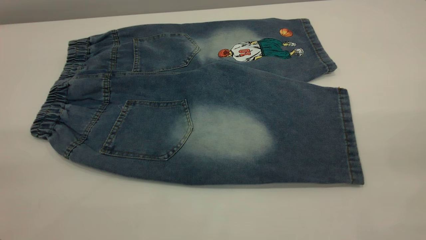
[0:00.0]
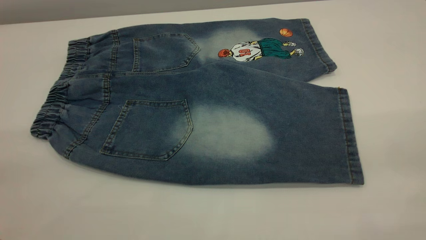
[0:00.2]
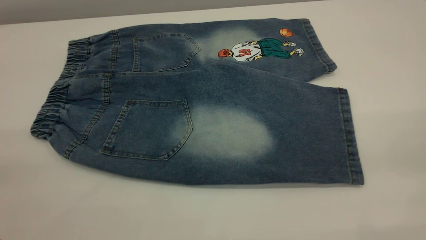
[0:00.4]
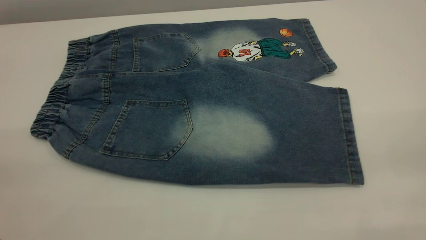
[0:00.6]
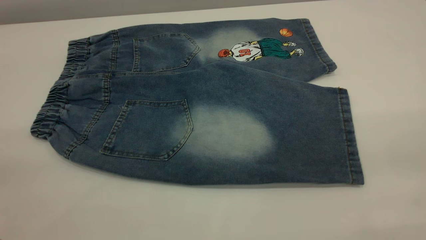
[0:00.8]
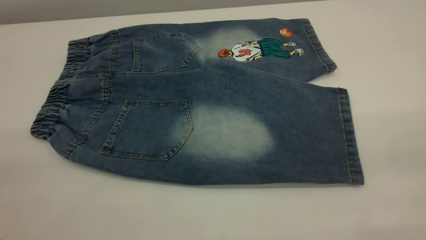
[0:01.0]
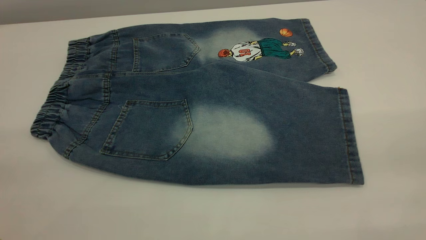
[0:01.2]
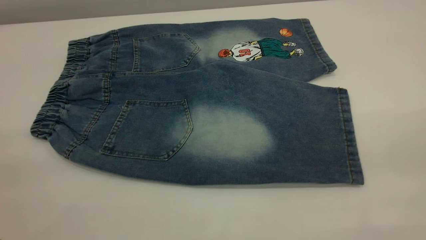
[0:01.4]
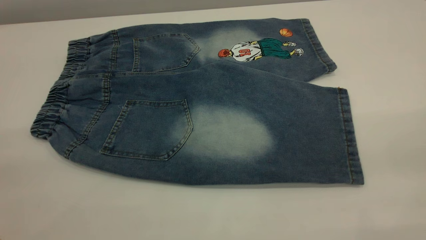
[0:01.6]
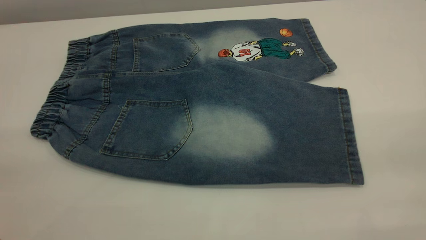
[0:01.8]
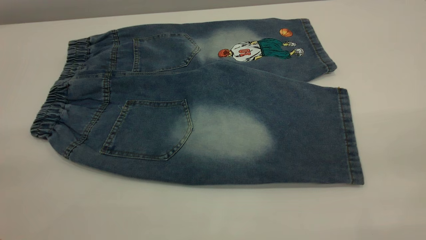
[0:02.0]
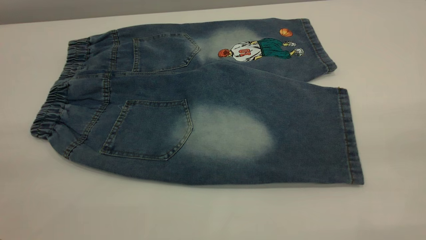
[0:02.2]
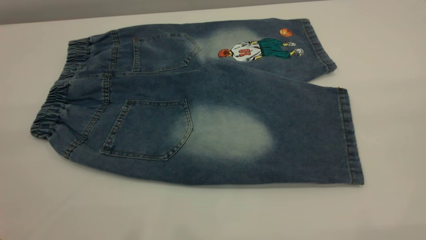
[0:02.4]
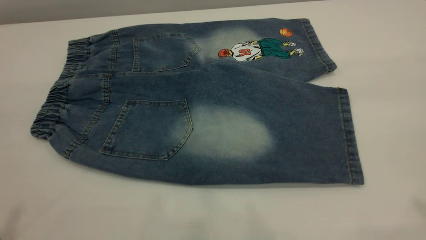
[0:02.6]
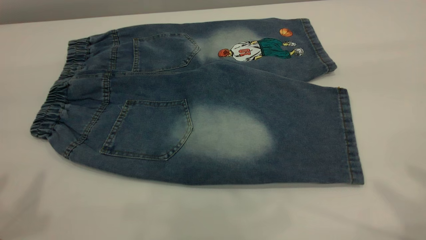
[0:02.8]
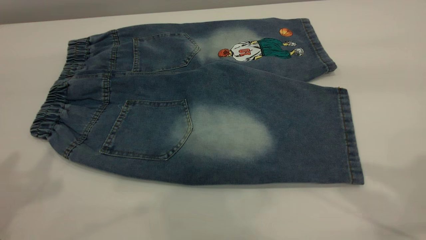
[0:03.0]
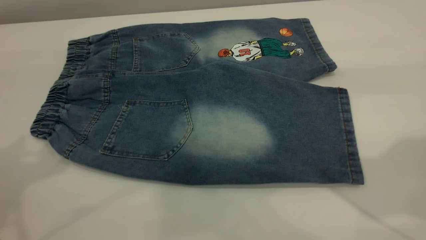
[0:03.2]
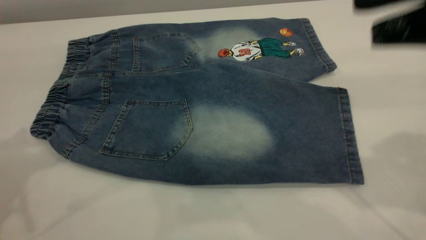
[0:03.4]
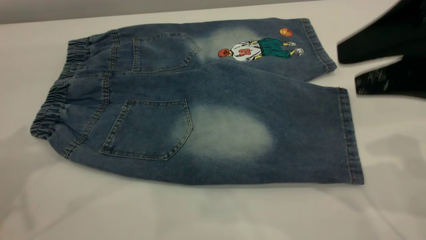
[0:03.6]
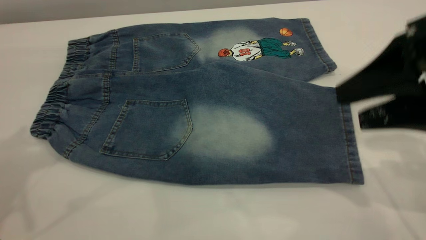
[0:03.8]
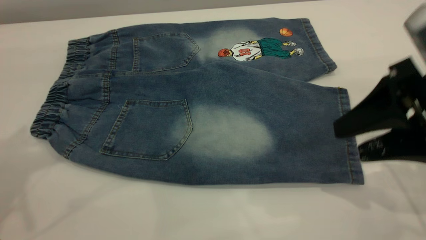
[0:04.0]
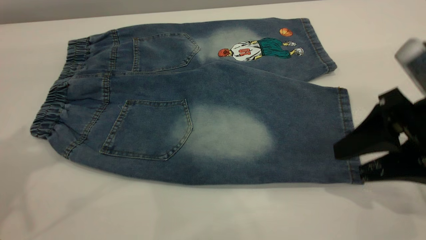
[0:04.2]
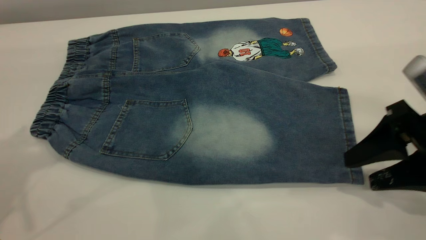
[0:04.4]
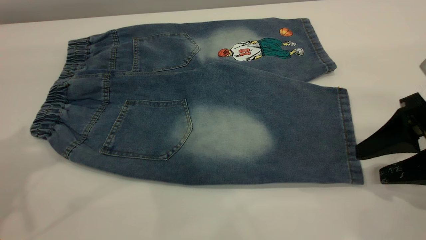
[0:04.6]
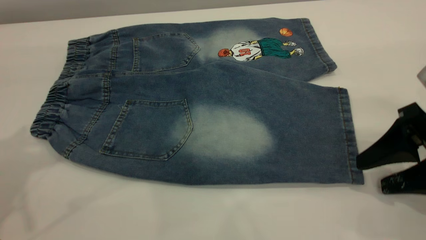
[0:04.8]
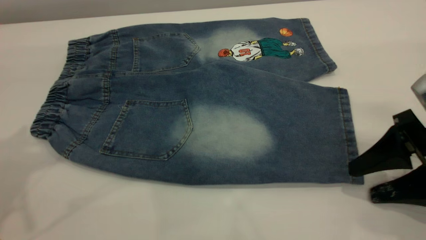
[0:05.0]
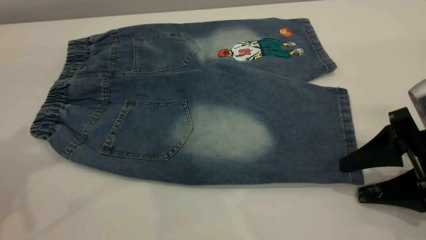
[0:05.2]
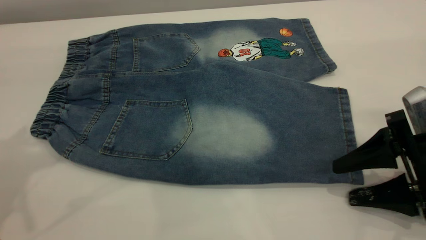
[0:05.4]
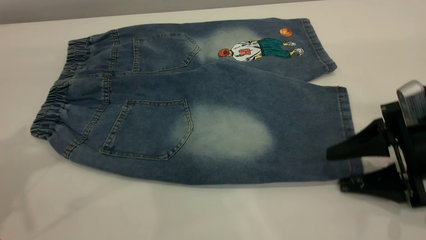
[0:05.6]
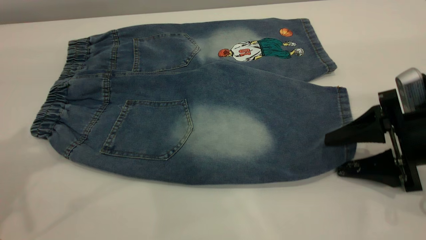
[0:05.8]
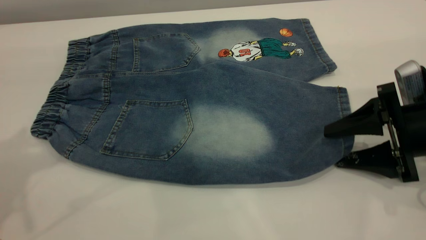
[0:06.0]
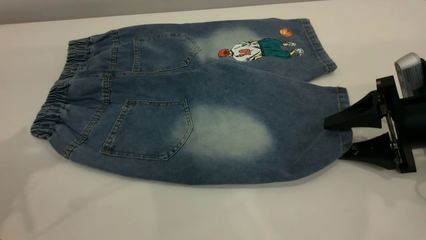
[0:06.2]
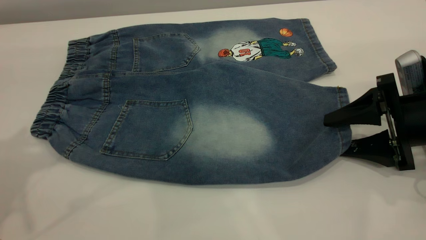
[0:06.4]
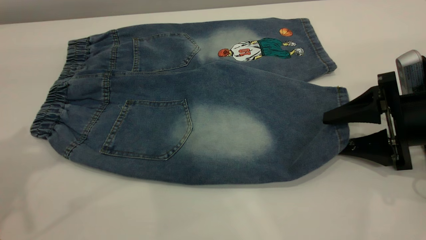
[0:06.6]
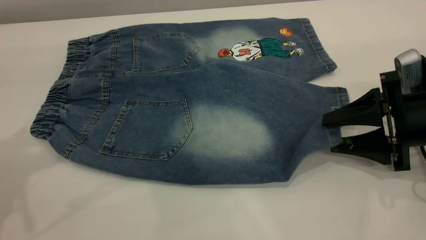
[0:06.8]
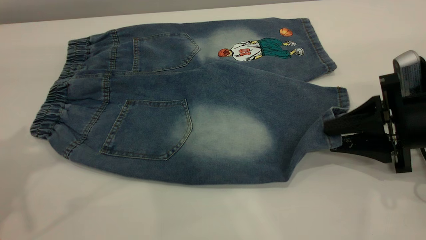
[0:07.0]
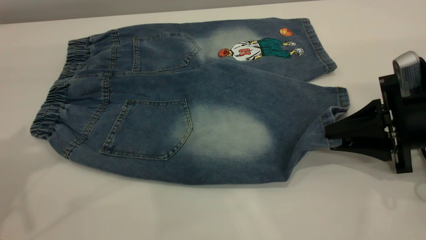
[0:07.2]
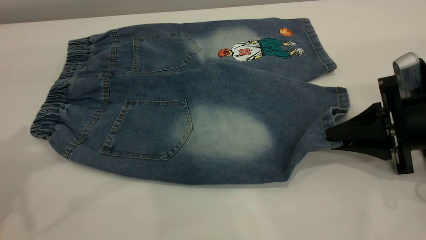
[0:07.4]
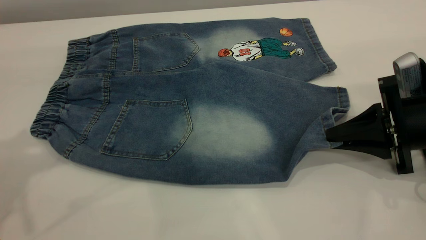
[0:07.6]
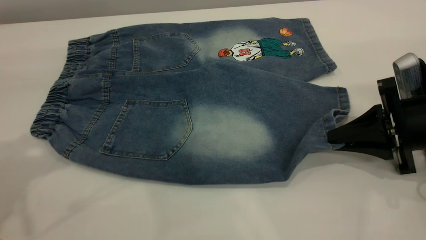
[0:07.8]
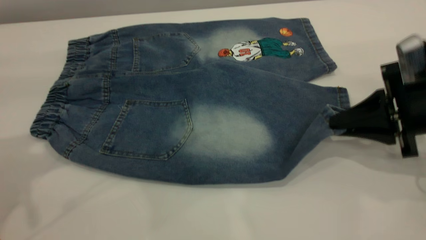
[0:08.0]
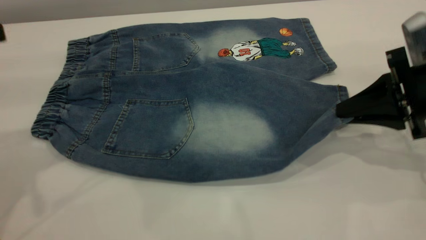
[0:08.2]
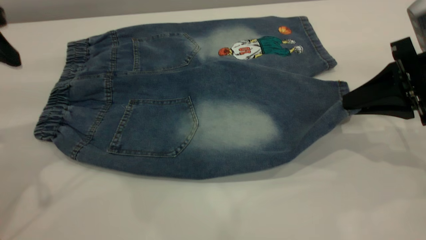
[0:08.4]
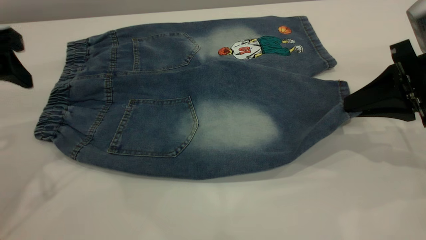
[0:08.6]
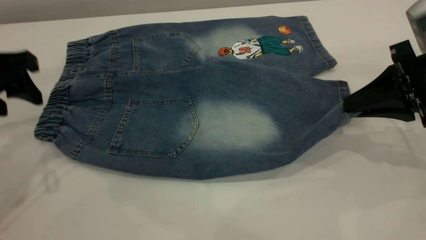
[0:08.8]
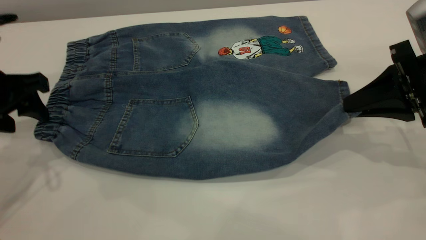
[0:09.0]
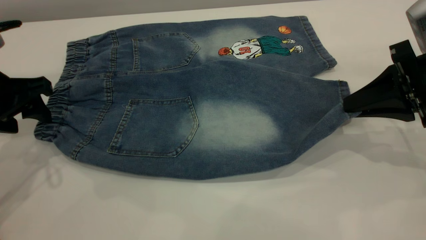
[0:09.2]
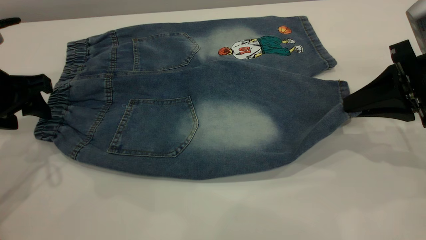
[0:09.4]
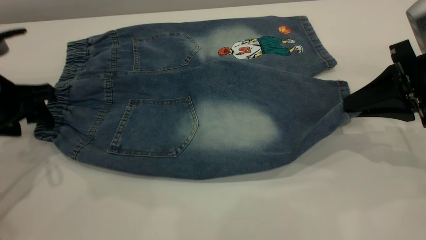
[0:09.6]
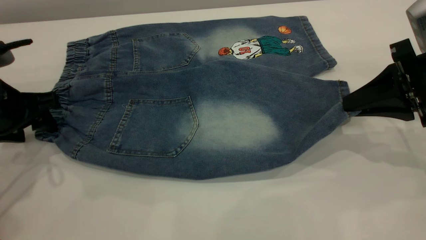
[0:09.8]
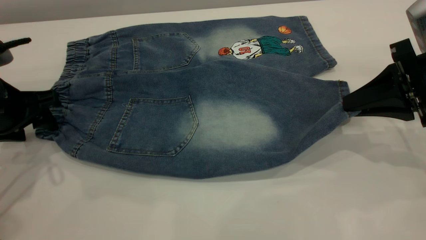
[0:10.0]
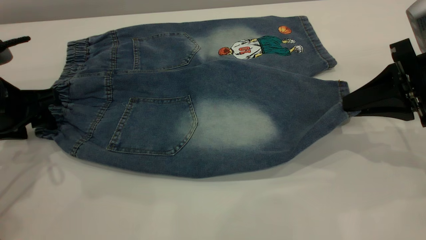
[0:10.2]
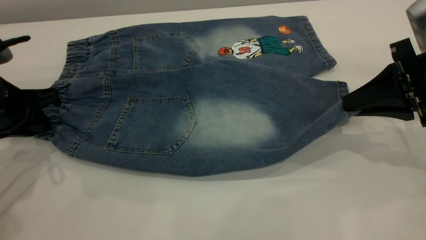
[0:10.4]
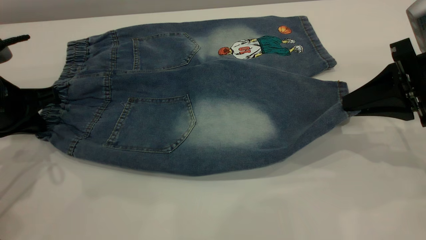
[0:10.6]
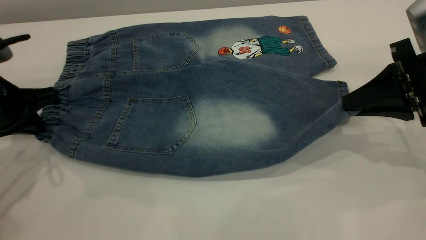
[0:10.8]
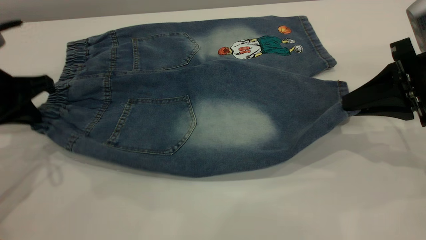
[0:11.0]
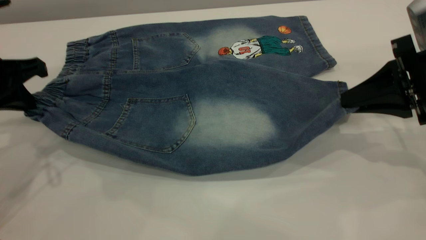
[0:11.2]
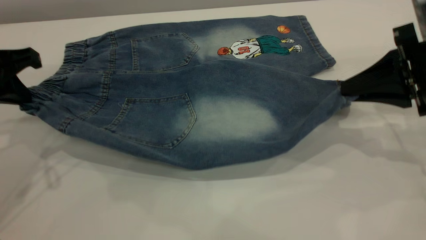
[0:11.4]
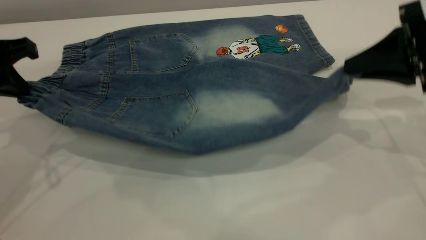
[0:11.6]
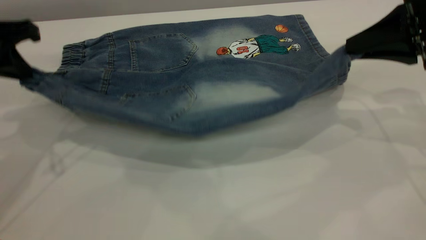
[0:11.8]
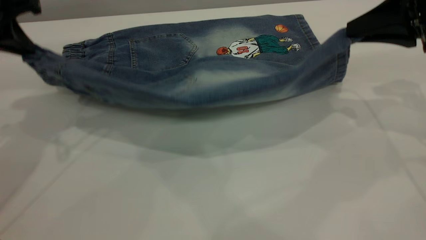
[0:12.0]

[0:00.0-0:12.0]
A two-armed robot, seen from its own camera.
0:00.0 to 0:01.6: The two grippers keep their place.
0:03.0 to 0:04.4: The left gripper ends up approximately 5 cm from where it was, while the right gripper is displaced downward by roughly 25 cm.
0:04.4 to 0:06.0: The right gripper ends up about 5 cm from where it was.
0:06.0 to 0:07.6: The right gripper closes.
0:07.6 to 0:09.0: The right gripper moves upward, roughly 5 cm, while the left gripper moves downward, approximately 15 cm.
0:09.0 to 0:10.4: The left gripper closes.
0:10.4 to 0:12.0: The left gripper travels upward by approximately 10 cm, and closes its fingers. The right gripper heads upward and forward, covering some 10 cm.

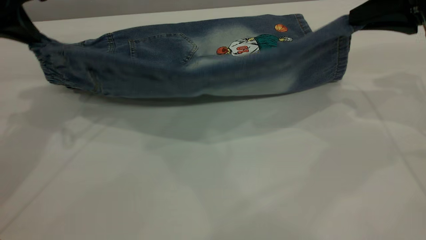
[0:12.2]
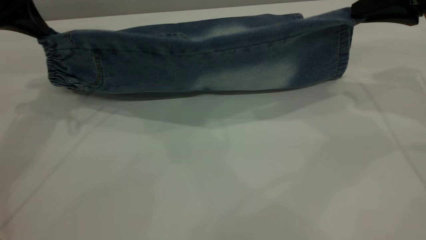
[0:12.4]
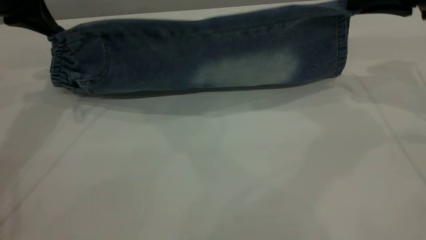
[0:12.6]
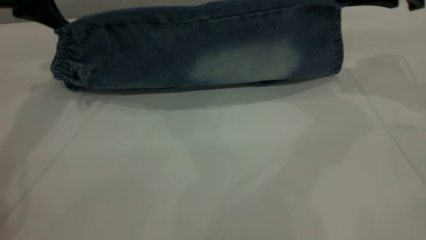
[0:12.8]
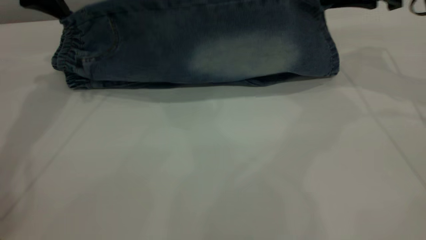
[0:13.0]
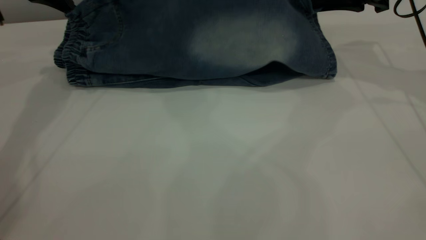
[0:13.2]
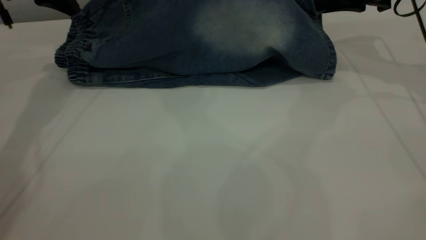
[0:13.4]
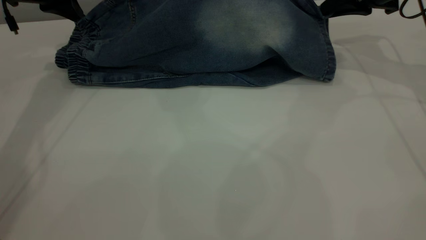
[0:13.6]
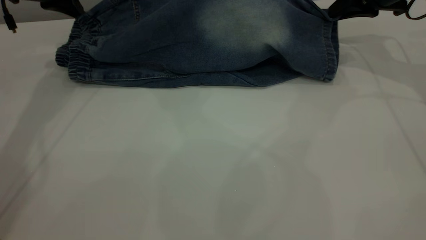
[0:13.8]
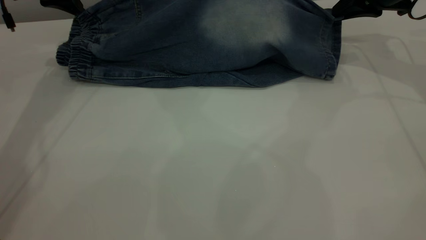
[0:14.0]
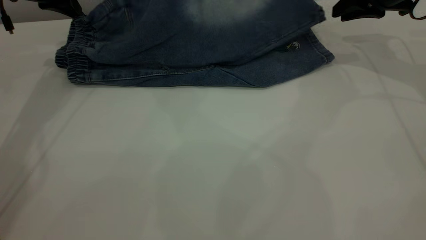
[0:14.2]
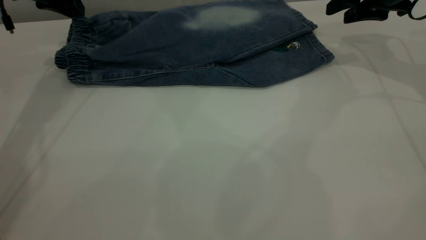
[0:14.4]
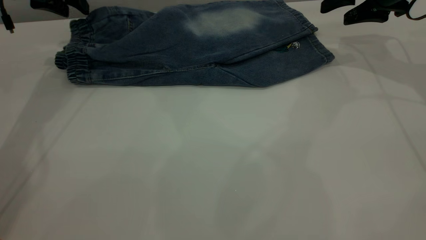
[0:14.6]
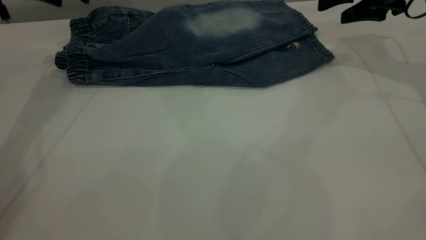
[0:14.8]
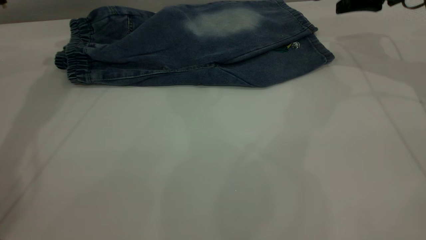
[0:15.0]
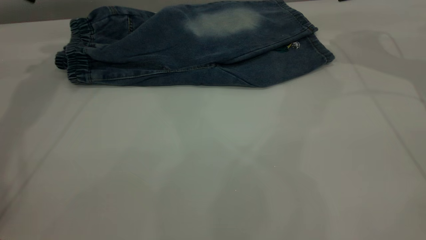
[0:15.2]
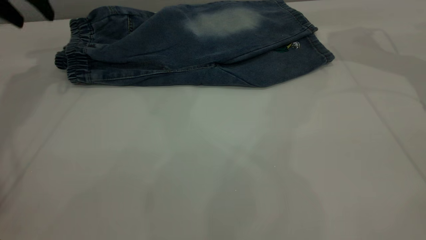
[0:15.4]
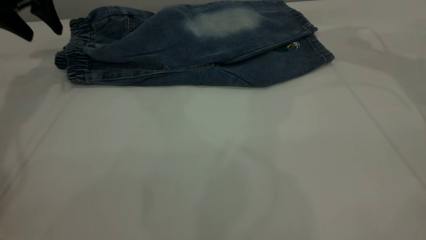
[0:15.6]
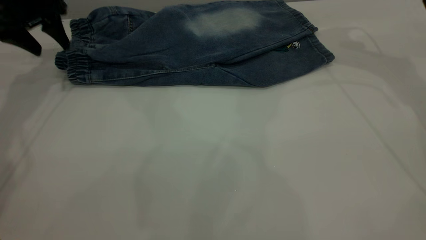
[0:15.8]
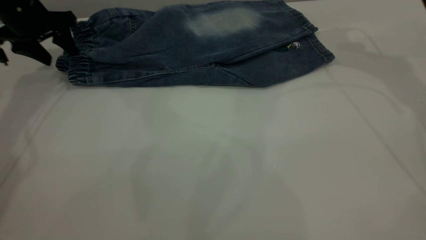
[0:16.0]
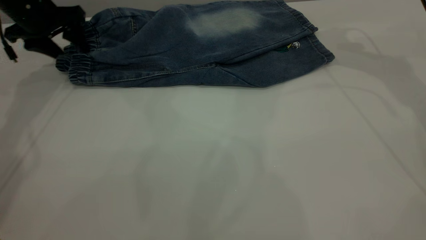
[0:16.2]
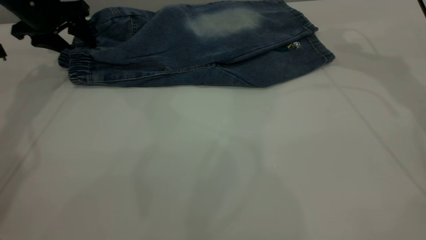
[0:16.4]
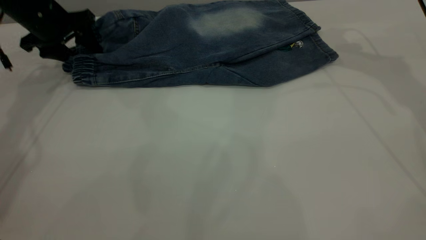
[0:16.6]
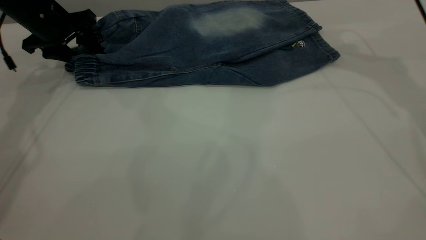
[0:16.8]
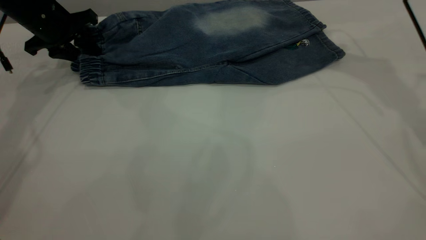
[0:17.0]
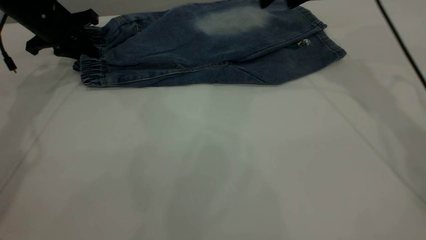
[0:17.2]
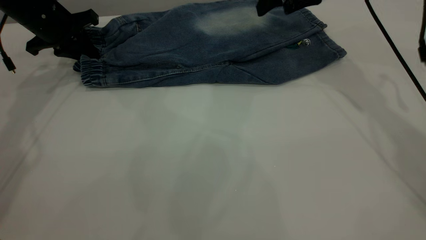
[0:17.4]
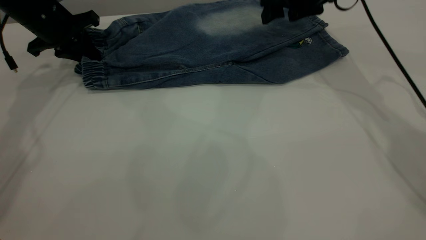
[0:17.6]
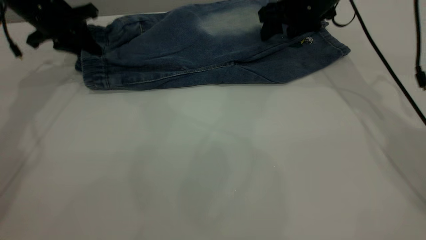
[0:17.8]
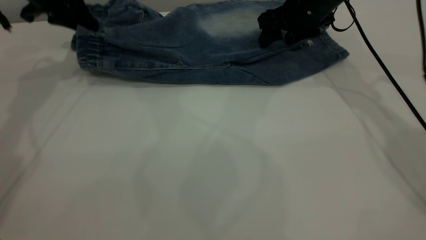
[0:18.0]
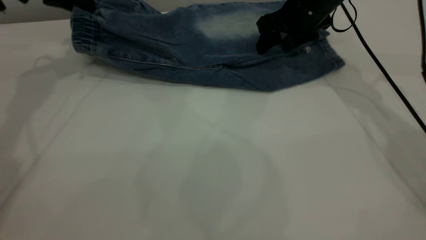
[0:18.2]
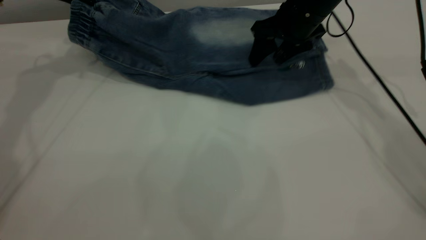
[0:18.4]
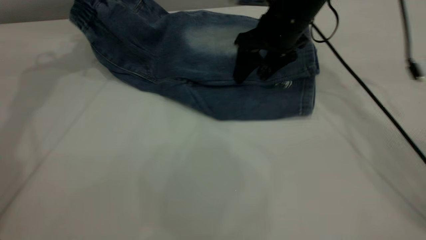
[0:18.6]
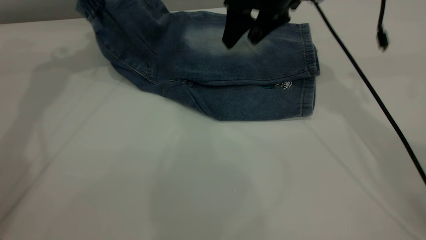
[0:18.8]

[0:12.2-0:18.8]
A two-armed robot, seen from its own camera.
Step, 0:12.2 to 0:15.2: Fold the bottom of the pants upward.
0:12.2 to 0:13.8: The two grippers go about 10 cm forward.
0:13.8 to 0:15.4: The right gripper travels upward by some 5 cm, and opens up; the left gripper shifts by some 5 cm, and opens its fingers.
0:15.4 to 0:17.2: The right gripper shifts some 10 cm to the left; the left gripper travels downward by some 10 cm, and closes.
0:17.2 to 0:18.8: The right gripper goes about 5 cm to the left, and travels downward and back again, approximately 10 cm each way. Meanwhile the left gripper shifts some 15 cm upward.
